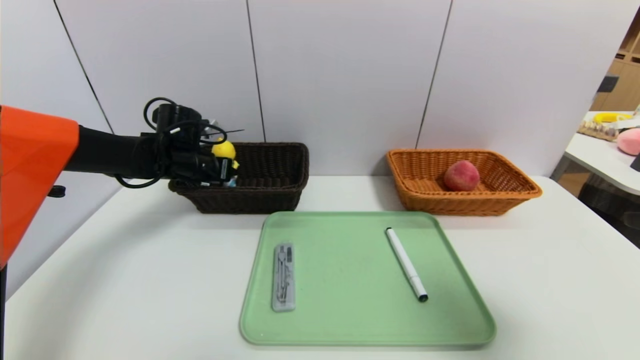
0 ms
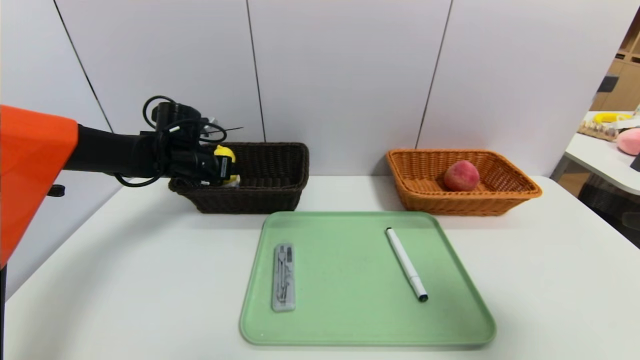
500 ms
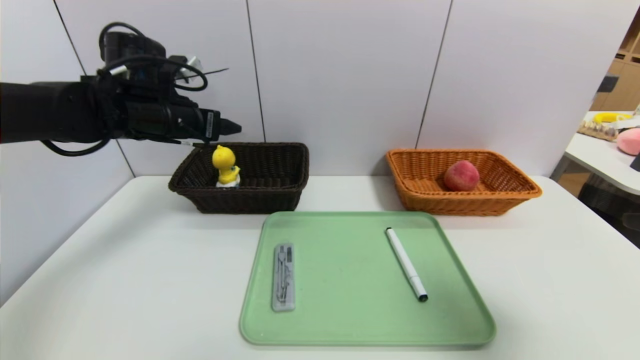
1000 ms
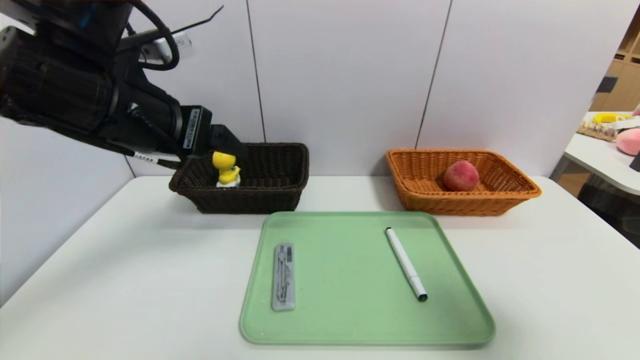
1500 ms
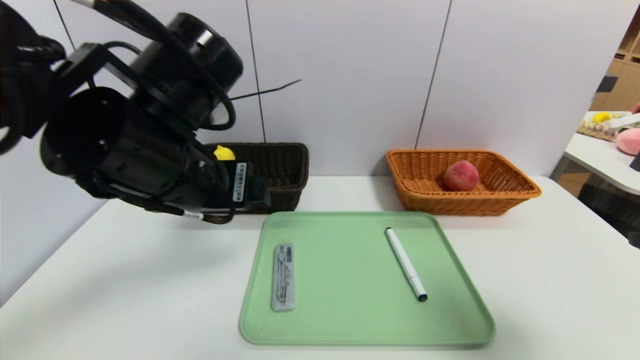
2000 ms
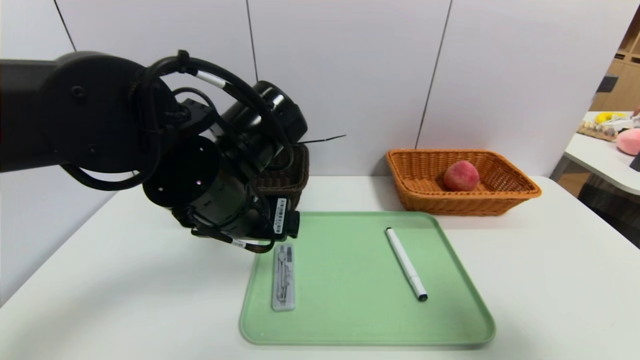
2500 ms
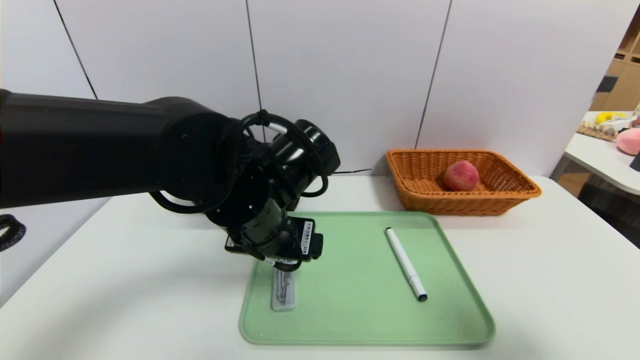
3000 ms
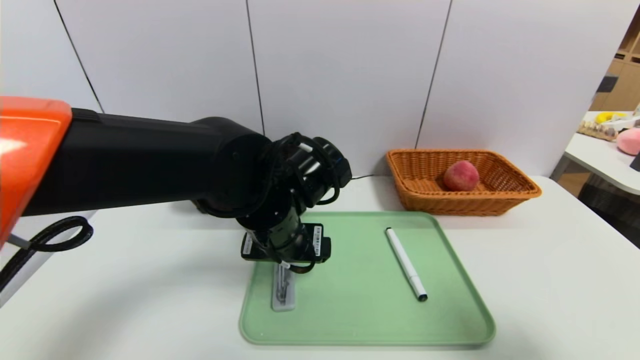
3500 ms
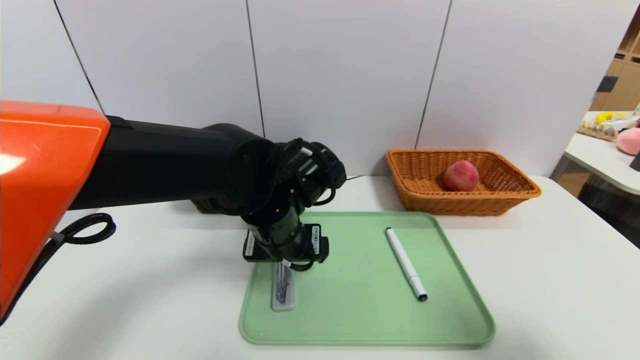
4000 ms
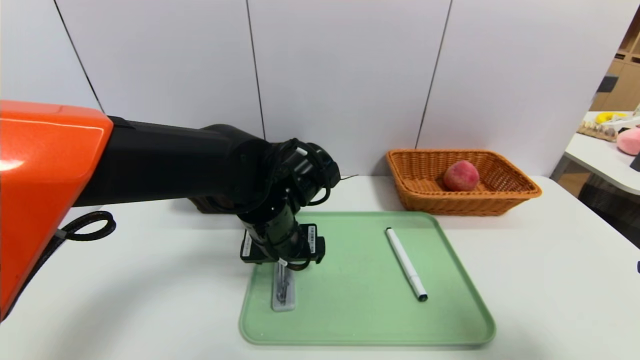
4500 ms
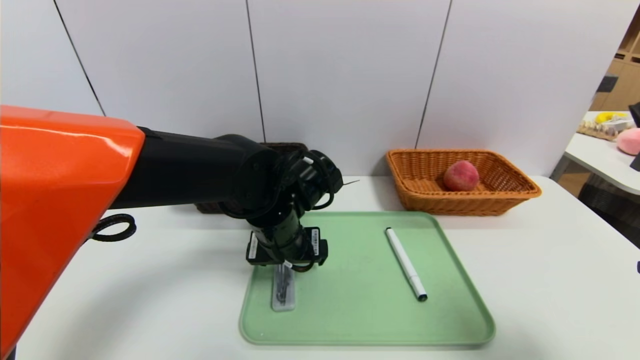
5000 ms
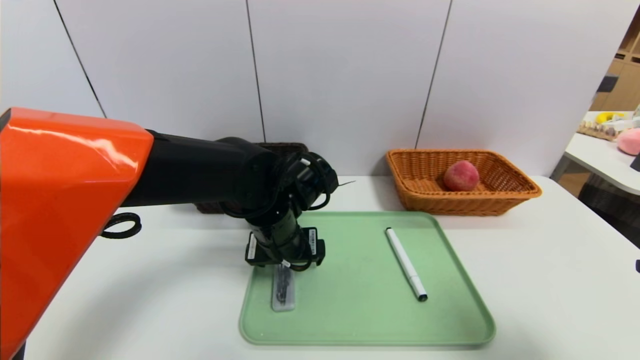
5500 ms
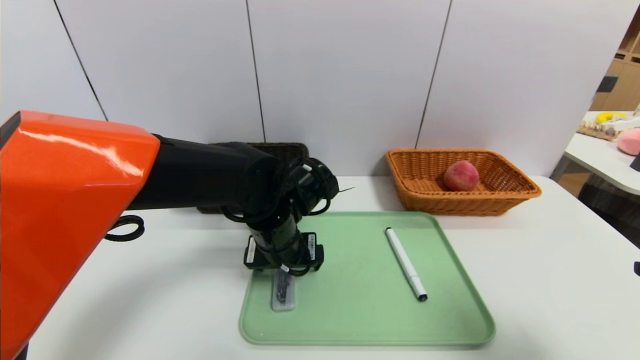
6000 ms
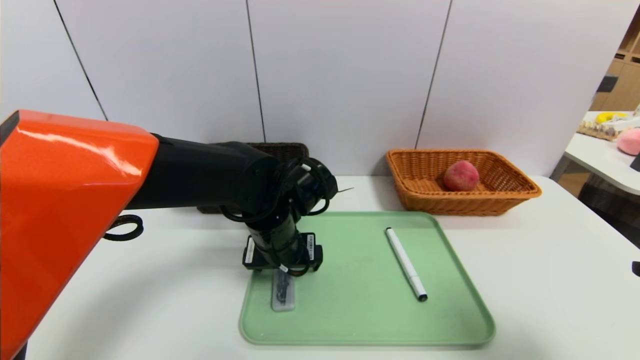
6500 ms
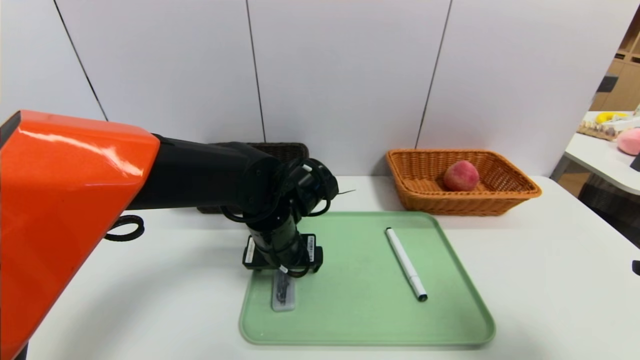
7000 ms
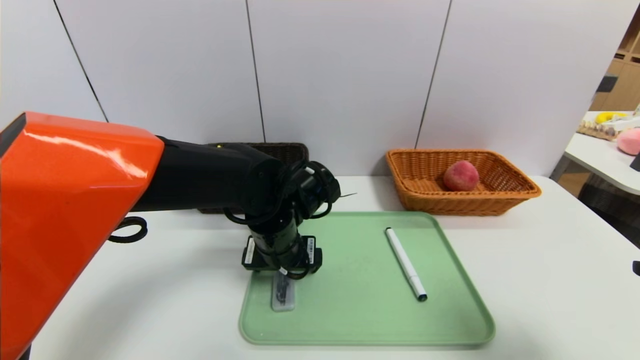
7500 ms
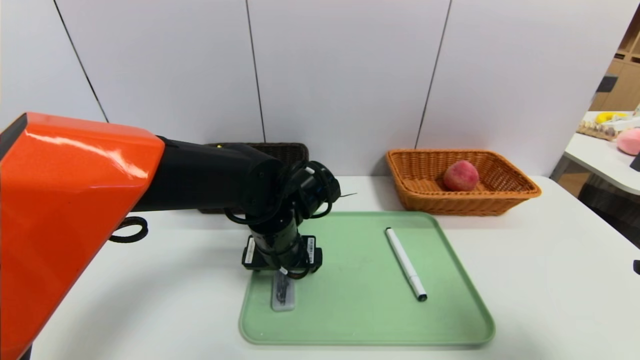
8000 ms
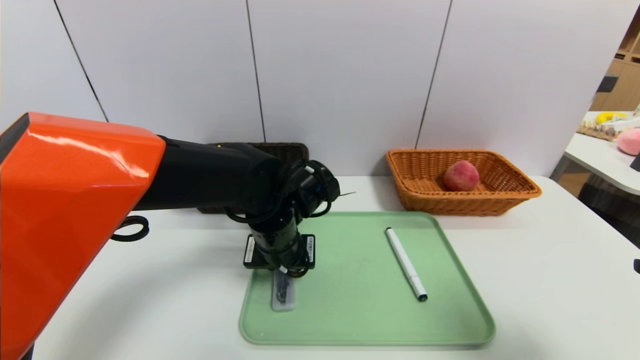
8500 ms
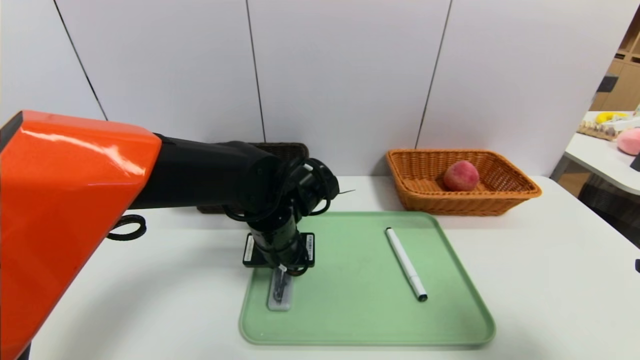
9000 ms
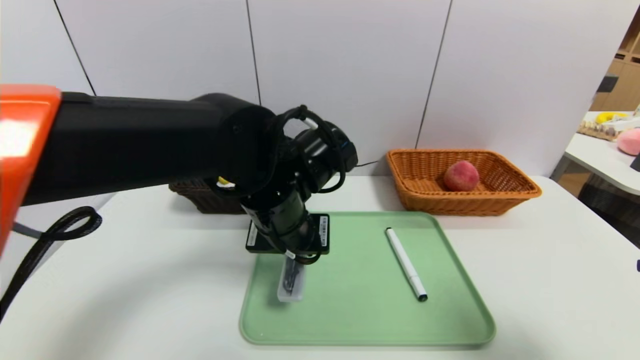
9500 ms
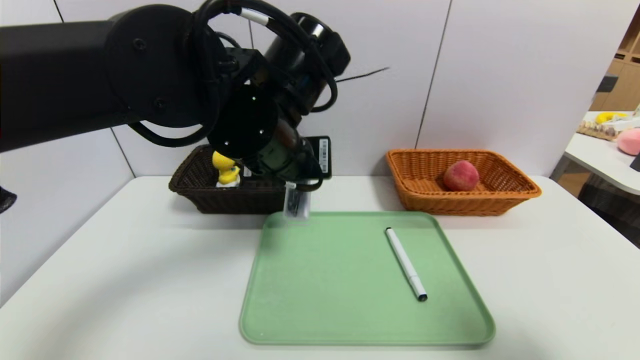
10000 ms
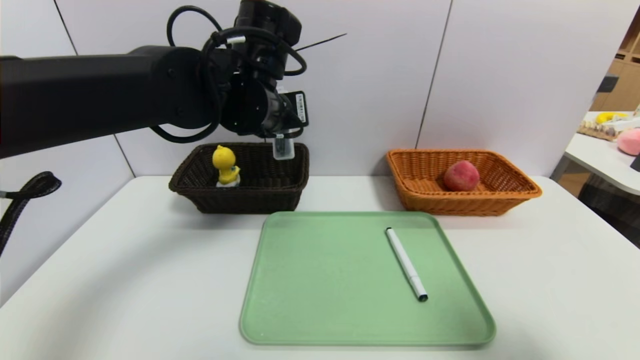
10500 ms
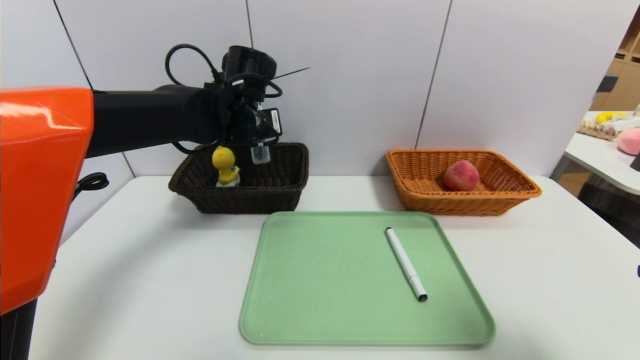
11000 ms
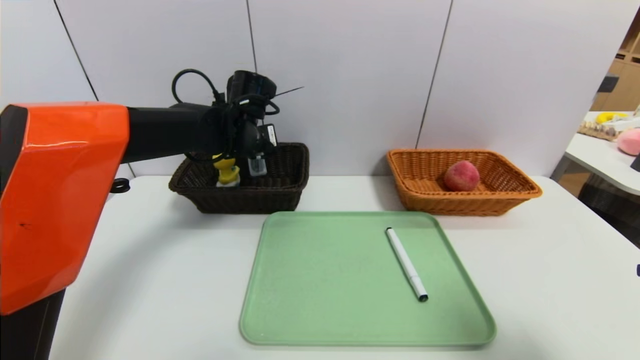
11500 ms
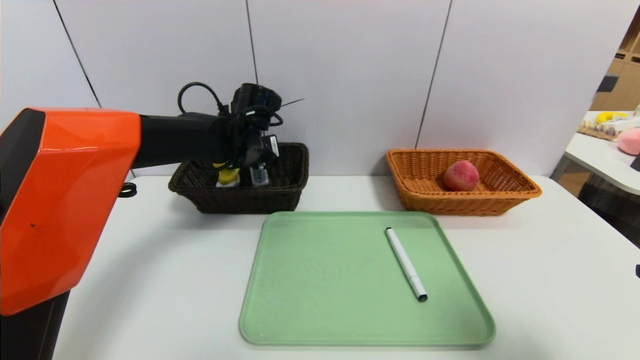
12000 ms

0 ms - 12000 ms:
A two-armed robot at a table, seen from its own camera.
Task of the whole recording: place the food in the right basket with the right gripper, and place the non food items in the left basket with the left gripper.
0 ms - 2000 ms: The left gripper is displaced backward, upward and to the right by approximately 30 cm, and opens.
2000 ms - 4000 ms: The left gripper moves downward, to the right and forward, roughly 15 cm.
4000 ms - 6000 ms: The grippers move only a little.
6000 ms - 8000 ms: Both grippers stay put.
8000 ms - 10000 ms: The left gripper shifts approximately 15 cm upward, and closes its fingers.
10000 ms - 12000 ms: The left gripper heads forward, downward and to the left, covering roughly 20 cm.

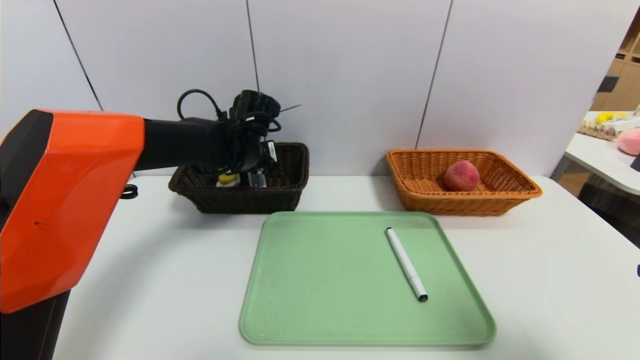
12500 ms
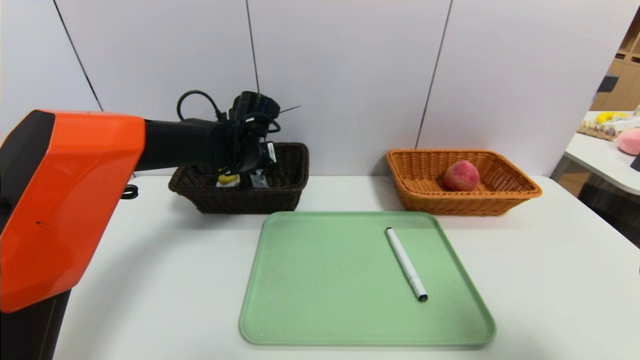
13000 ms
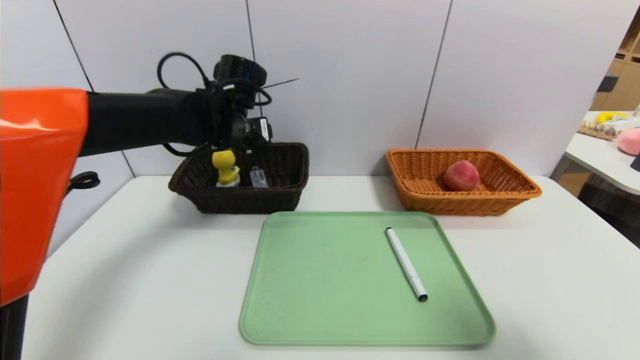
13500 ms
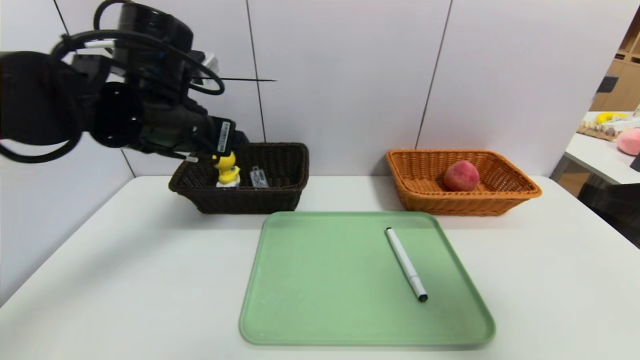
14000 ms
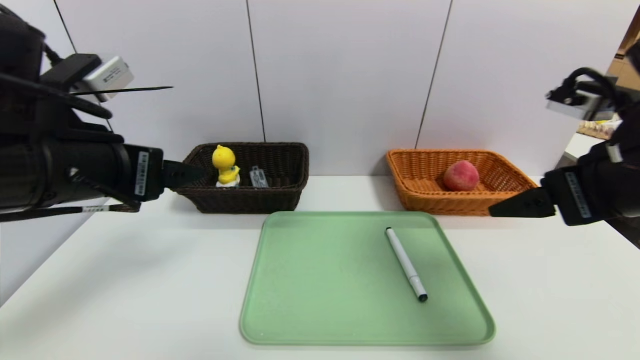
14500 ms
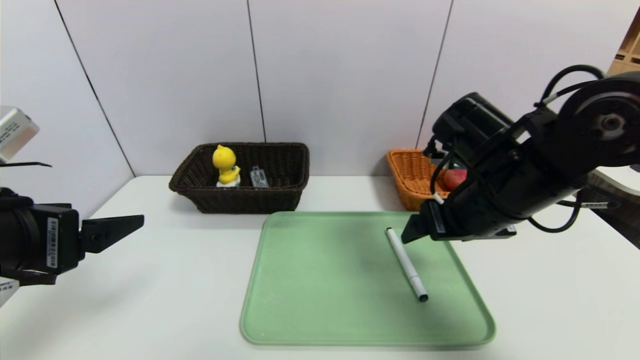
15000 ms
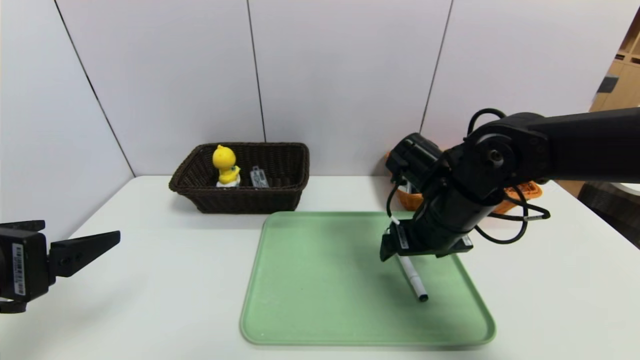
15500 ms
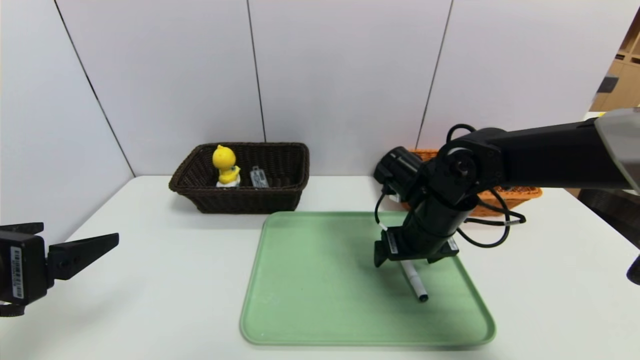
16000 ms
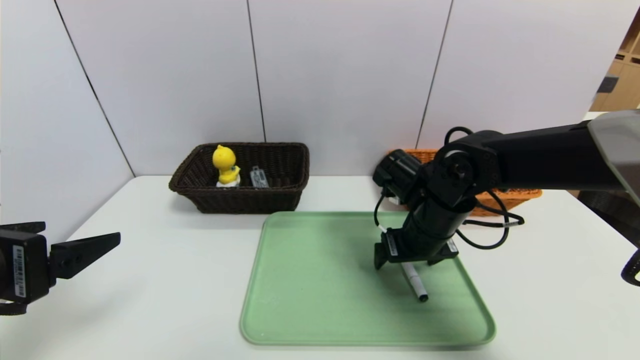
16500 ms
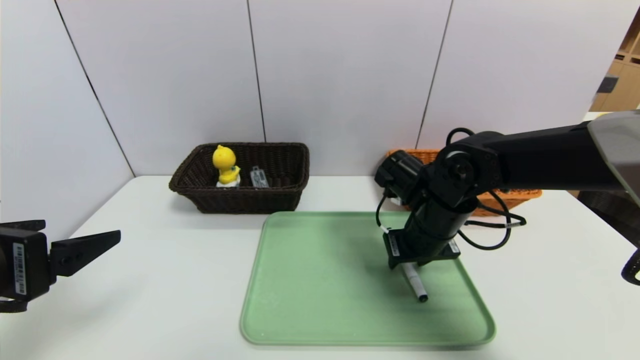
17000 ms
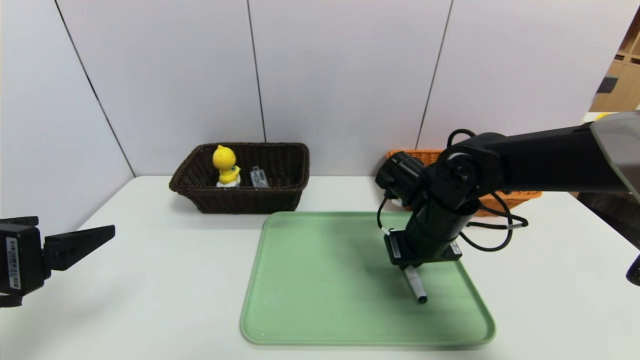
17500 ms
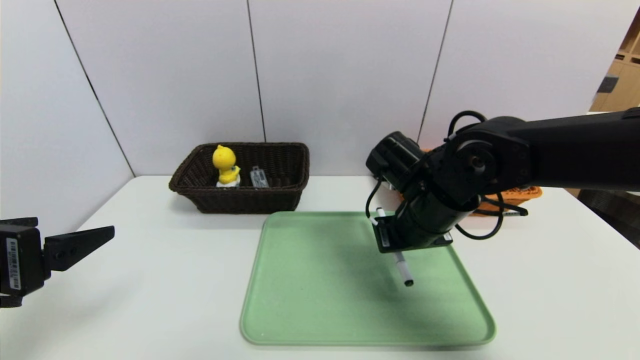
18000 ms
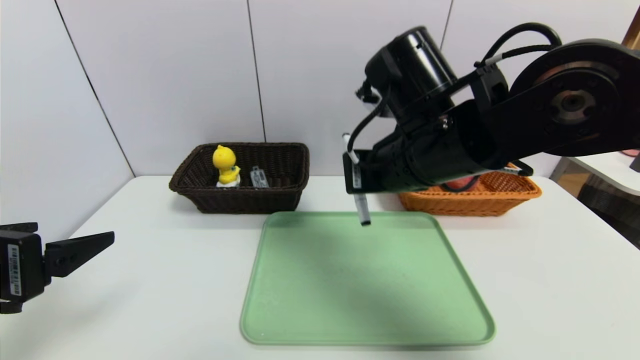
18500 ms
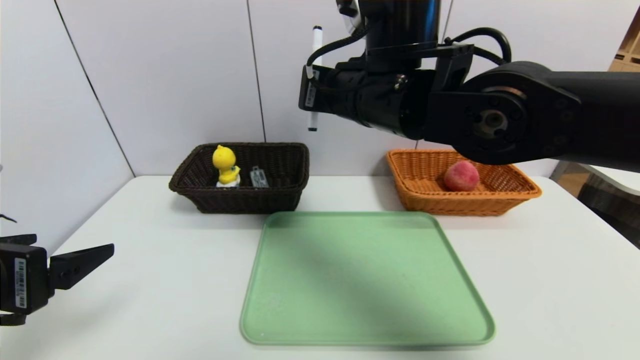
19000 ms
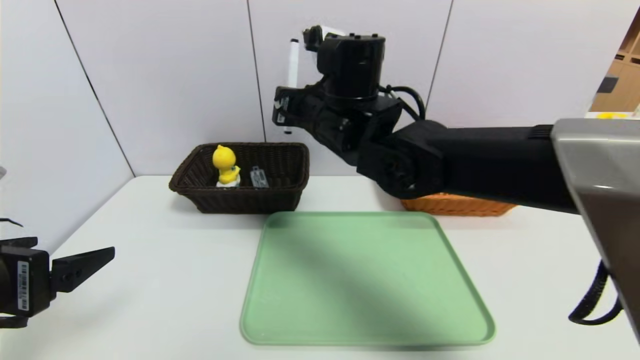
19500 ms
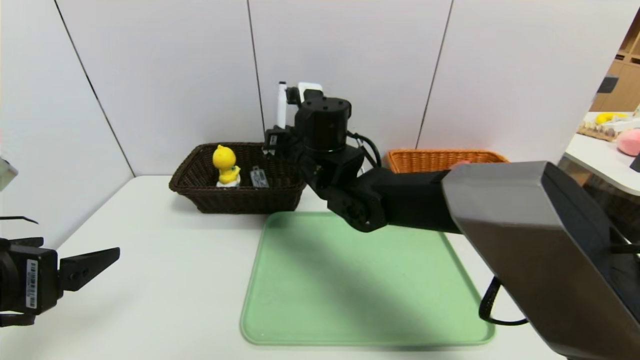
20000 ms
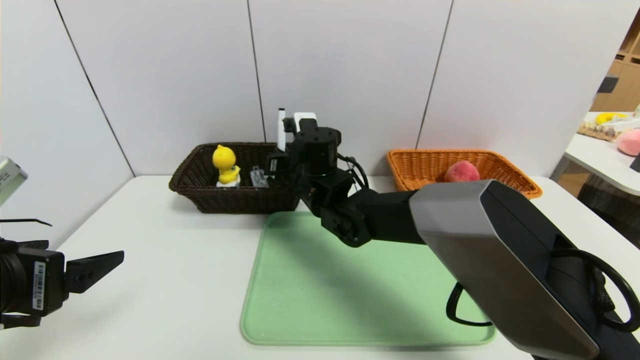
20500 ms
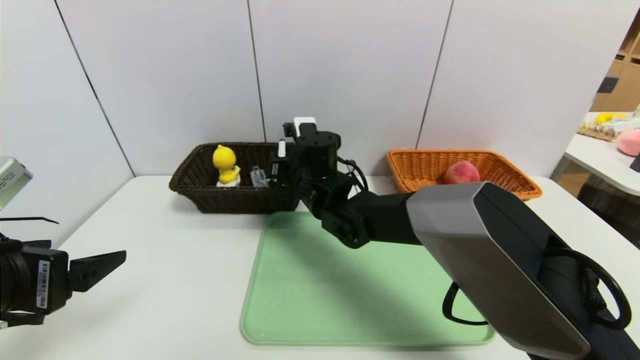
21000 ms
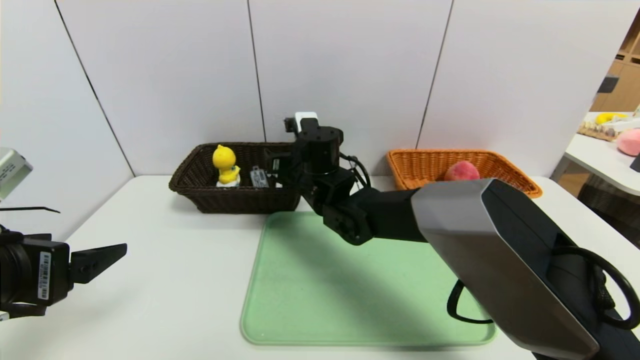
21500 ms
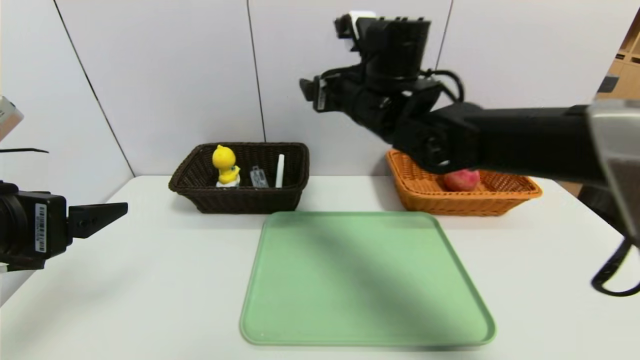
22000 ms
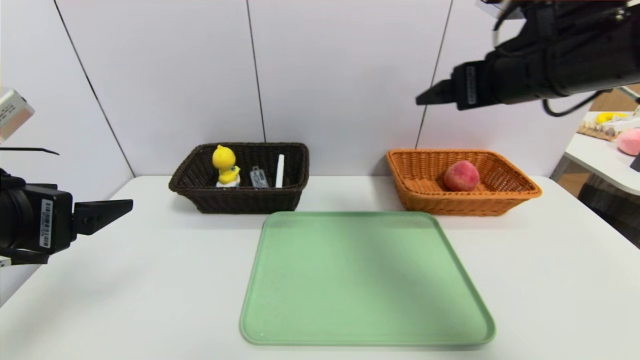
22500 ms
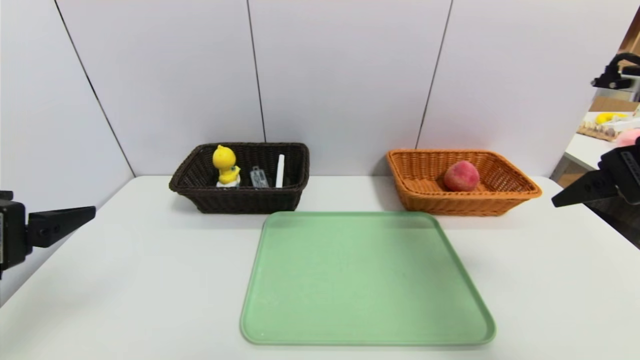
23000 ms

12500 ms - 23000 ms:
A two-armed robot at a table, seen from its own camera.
Task of the whole recording: place the food in the right basket with the right gripper, and place the non food items in the left basket with the left gripper.
Step, 13500 ms - 21000 ms: Grasp the black marker and put it in the left basket.
12500 ms - 14500 ms: The right gripper shifts roughly 15 cm forward and to the left. Meanwhile the left gripper is displaced backward, upward and to the left by some 25 cm, and opens.
14500 ms - 16500 ms: The left gripper moves backward and to the left, approximately 10 cm, while the right gripper goes about 25 cm downward, forward and to the left.
16500 ms - 19000 ms: The right gripper shifts approximately 20 cm upward and to the left, and closes up.
19000 ms - 21000 ms: The right gripper is displaced downward, forward and to the left by roughly 20 cm, and opens its fingers.
21000 ms - 23000 ms: The right gripper shifts approximately 40 cm to the right, backward and upward, and opens.
